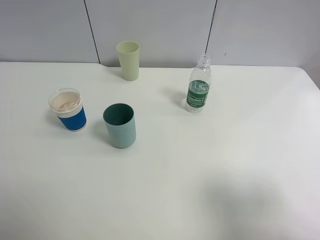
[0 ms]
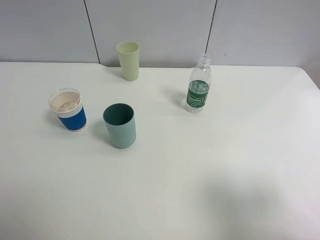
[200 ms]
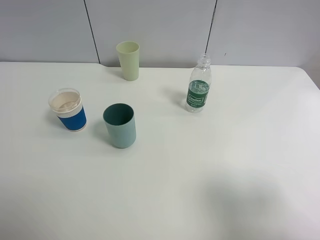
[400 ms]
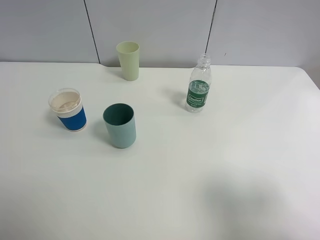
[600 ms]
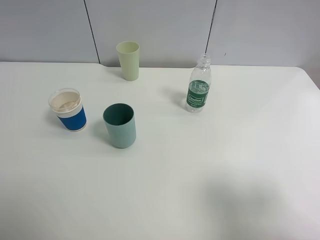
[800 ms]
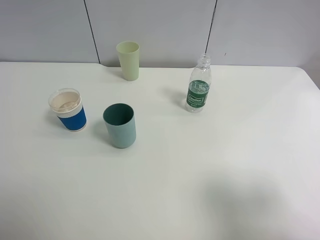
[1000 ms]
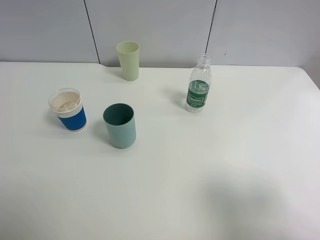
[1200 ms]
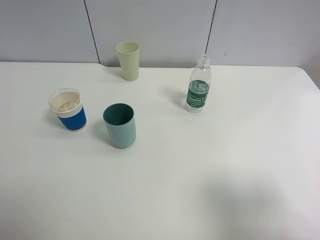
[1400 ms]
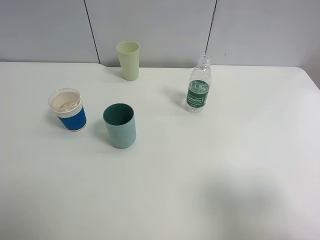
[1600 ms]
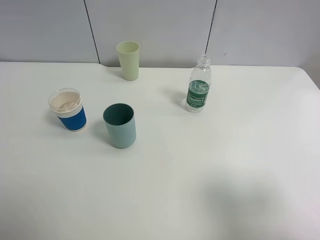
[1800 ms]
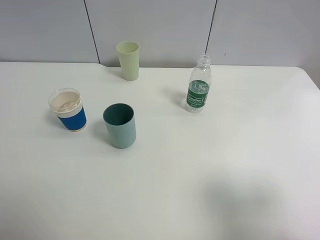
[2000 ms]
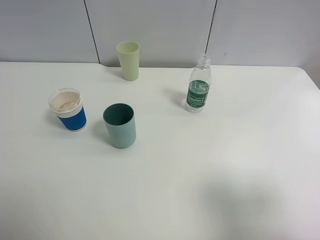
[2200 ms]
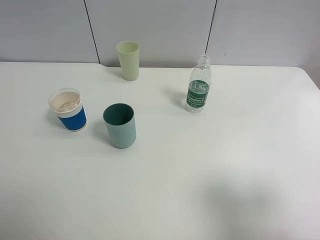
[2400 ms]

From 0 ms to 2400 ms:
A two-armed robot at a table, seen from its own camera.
Task of the whole recording: use a clamp to hold the bottle of the drink, pour the beverage into a random cup, then clamp the cup containing the drink and pour the drink into another random cup.
From 0 ms to 2400 ms: The two grippers keep their place.

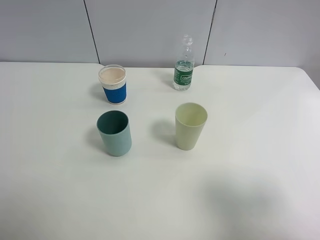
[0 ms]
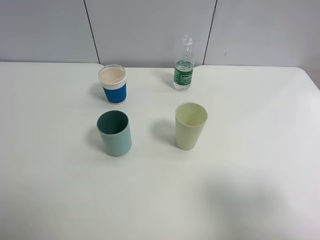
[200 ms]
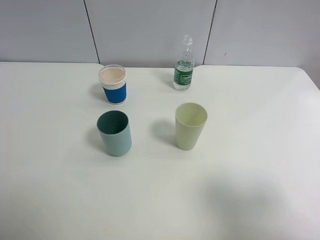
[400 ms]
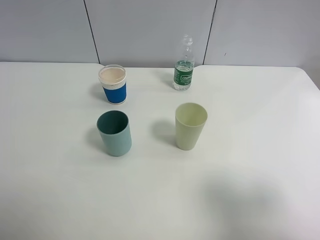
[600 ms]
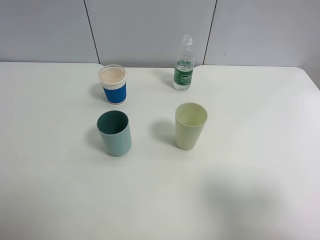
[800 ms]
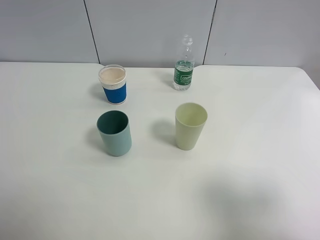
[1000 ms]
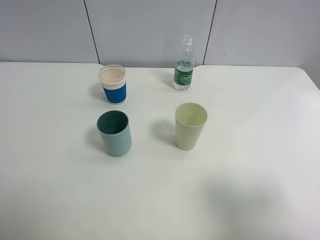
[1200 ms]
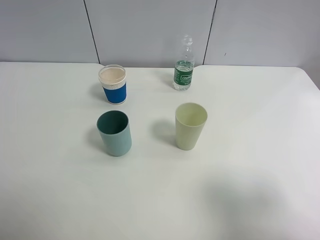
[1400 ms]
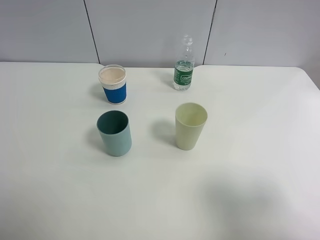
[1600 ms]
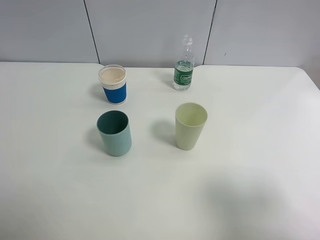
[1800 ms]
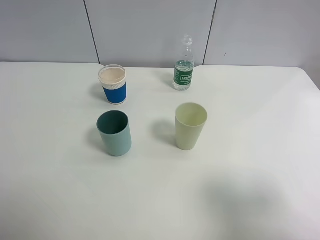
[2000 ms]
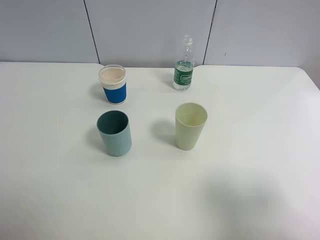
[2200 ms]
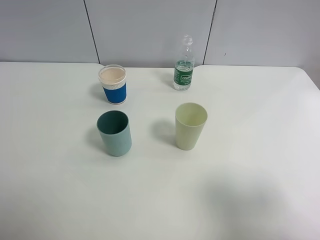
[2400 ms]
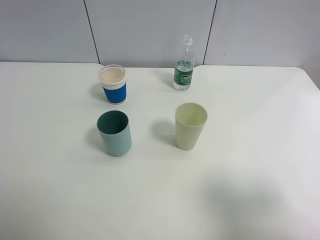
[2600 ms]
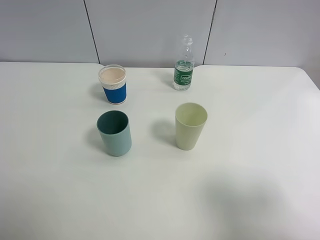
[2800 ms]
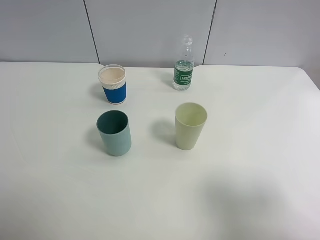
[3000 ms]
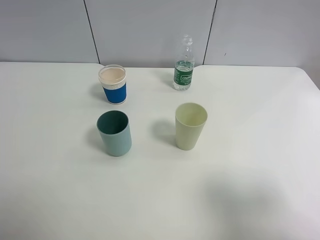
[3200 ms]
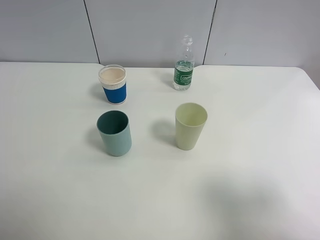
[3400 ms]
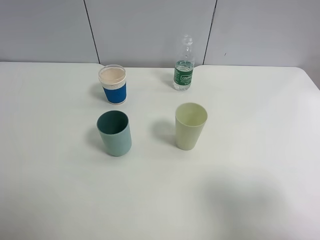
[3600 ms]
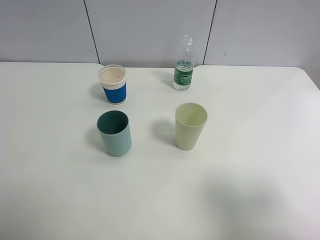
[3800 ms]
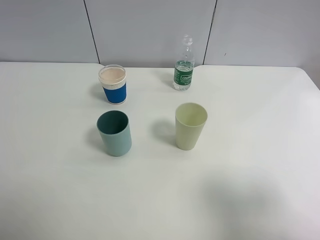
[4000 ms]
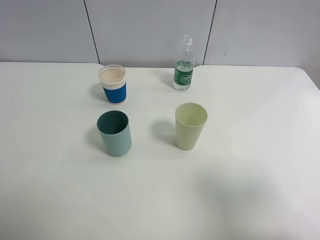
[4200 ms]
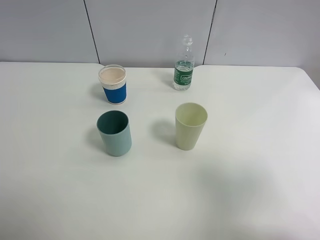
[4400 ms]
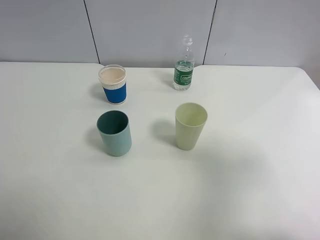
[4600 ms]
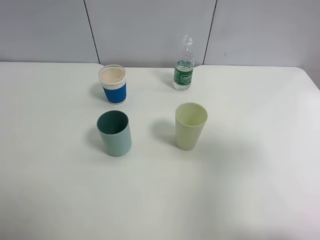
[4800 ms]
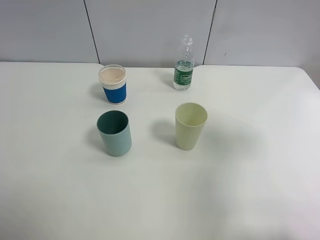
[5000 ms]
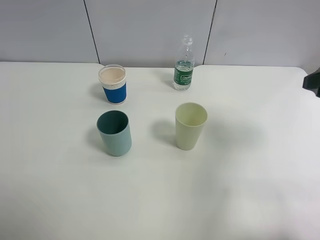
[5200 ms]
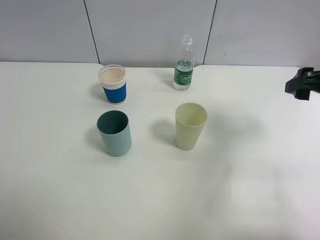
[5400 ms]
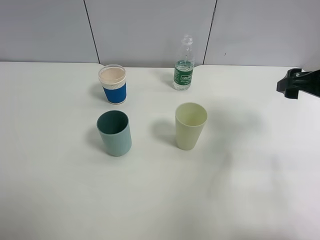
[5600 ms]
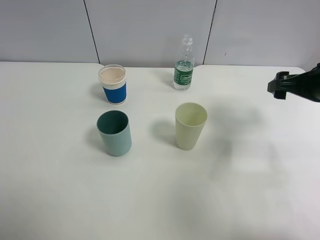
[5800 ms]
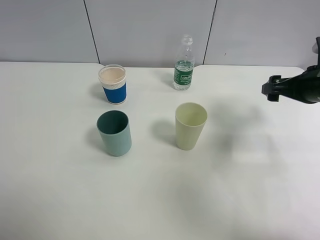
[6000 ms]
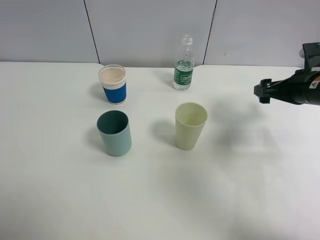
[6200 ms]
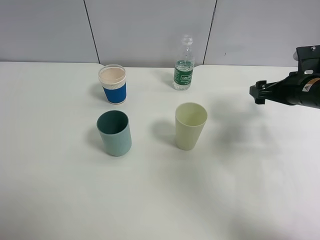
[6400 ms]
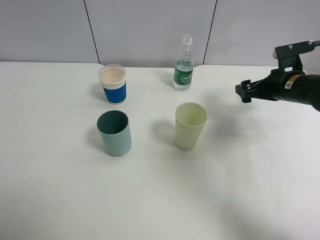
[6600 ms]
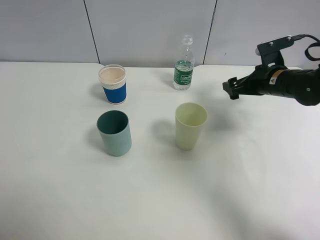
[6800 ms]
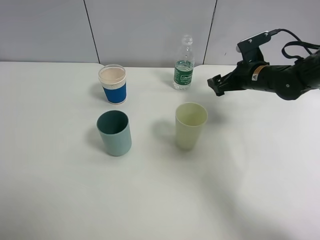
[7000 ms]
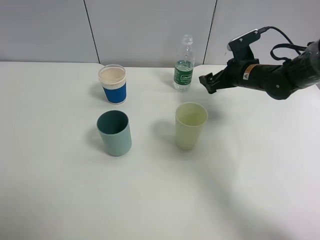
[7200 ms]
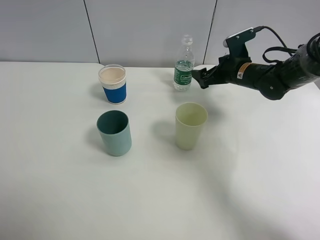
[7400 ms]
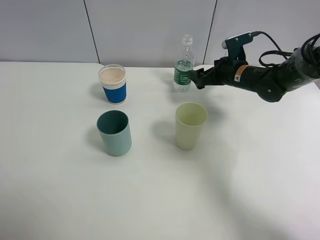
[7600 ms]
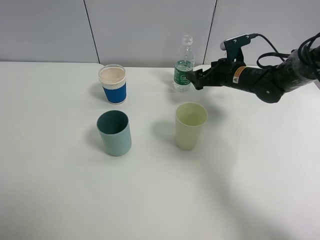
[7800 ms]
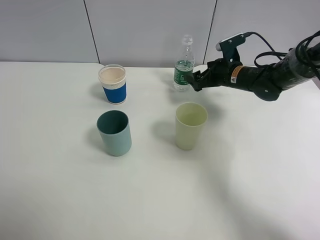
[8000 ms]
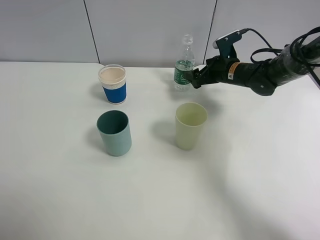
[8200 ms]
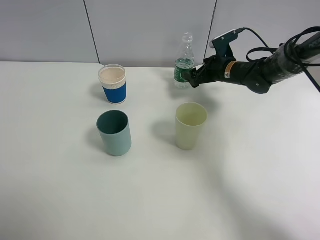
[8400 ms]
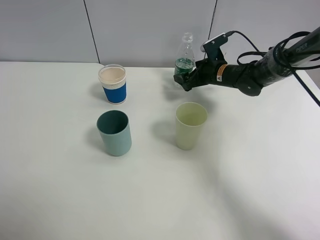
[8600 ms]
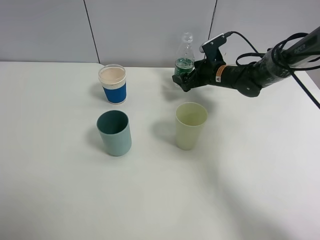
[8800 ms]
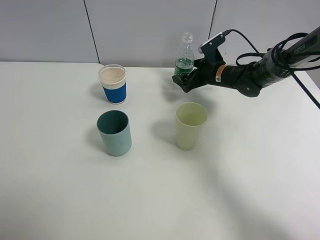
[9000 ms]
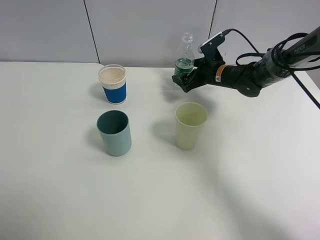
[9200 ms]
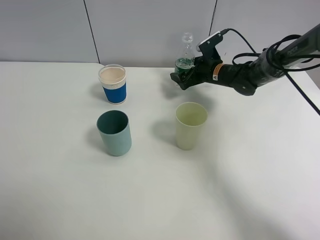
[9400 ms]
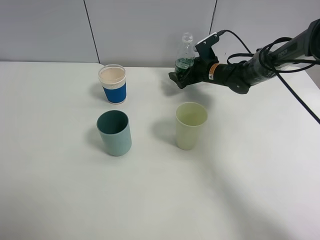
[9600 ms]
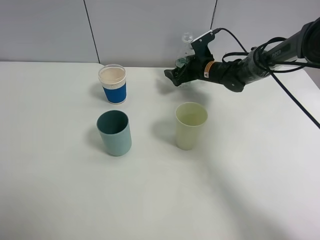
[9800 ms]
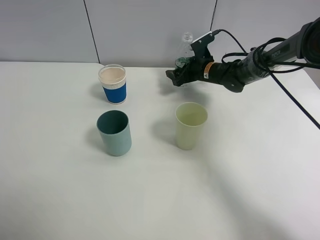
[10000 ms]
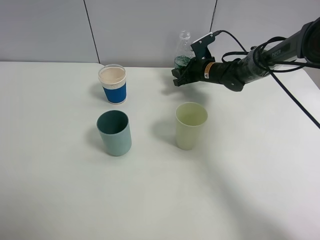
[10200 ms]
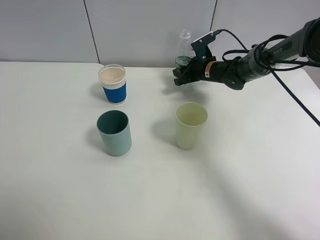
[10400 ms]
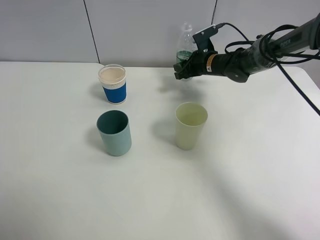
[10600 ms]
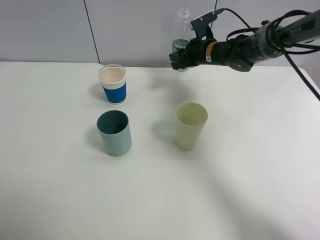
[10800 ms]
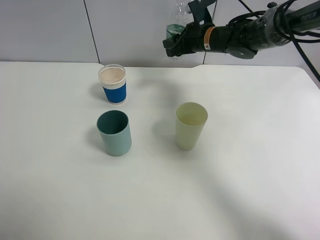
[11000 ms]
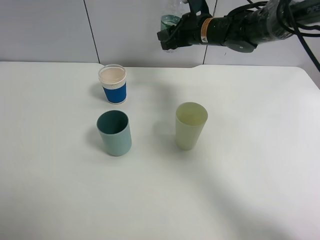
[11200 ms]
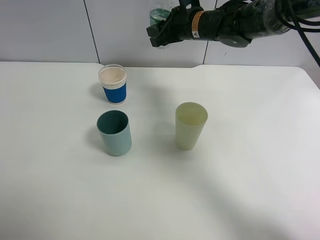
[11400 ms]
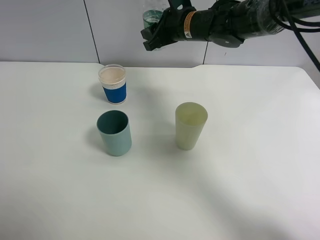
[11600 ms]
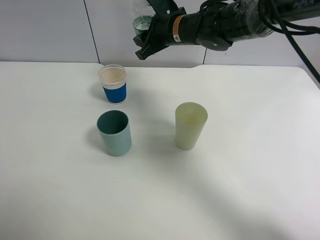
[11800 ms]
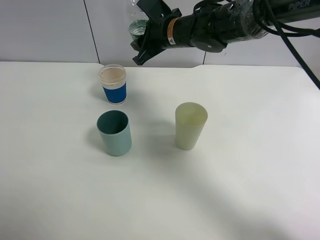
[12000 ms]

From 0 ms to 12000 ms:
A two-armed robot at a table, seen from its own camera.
Task of the whole recording: use a clamp to hold the bottle of the drink, pour the beverage into a random cup, then clamp the cup containing the drink and pour the drink into another random cup.
Step, from 0 ms to 10800 ms: Pick up the water bottle with right gripper.
From 0 ms to 3000 ms: Neither gripper changes place.
From 3000 ms to 4400 ms: The grippers move only a little.
From 4400 ms to 6000 ms: The right gripper is displaced forward and downward by about 25 cm.
From 6000 ms to 7600 ms: The right gripper travels forward, to the left and downward by some 20 cm.
From 7600 ms to 9000 ms: The right gripper moves about 5 cm.
From 9000 ms to 10400 ms: The right gripper closes.
From 10400 ms to 12000 ms: The right gripper travels upward, to the left and backward by approximately 20 cm.

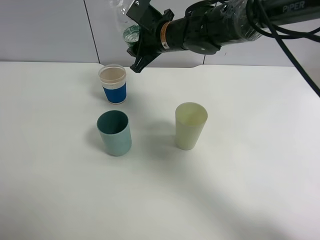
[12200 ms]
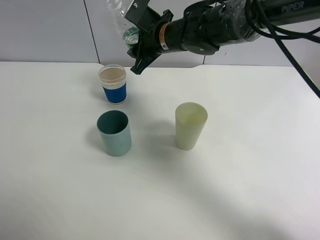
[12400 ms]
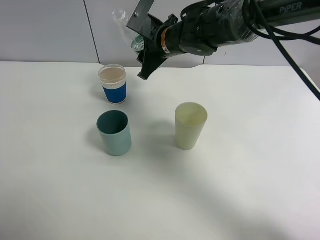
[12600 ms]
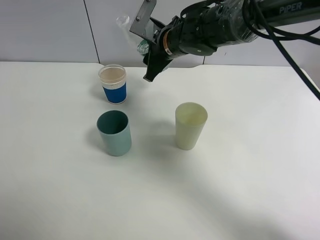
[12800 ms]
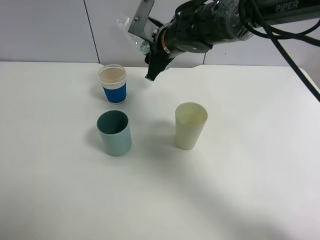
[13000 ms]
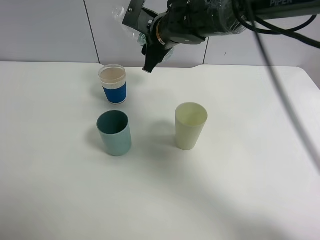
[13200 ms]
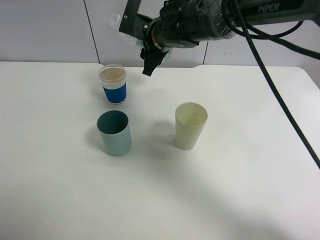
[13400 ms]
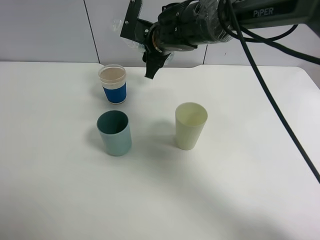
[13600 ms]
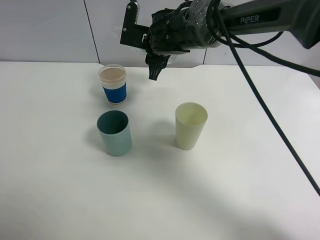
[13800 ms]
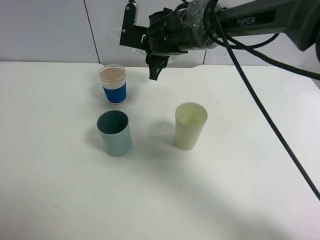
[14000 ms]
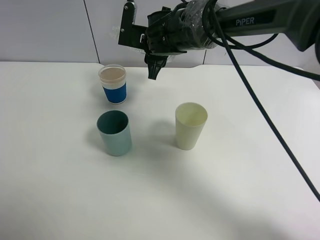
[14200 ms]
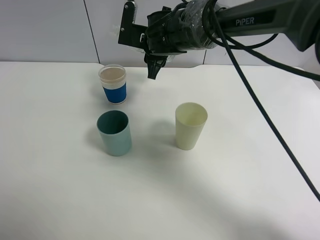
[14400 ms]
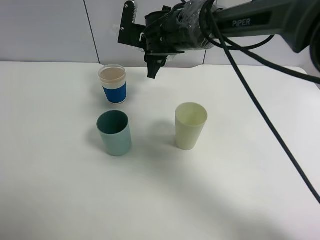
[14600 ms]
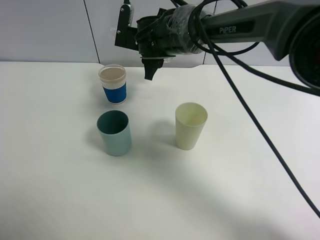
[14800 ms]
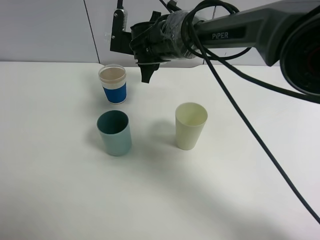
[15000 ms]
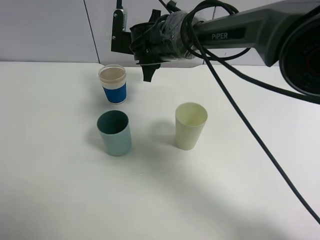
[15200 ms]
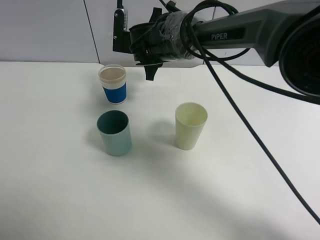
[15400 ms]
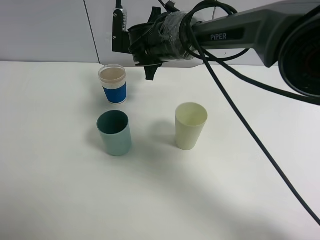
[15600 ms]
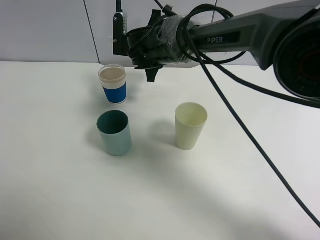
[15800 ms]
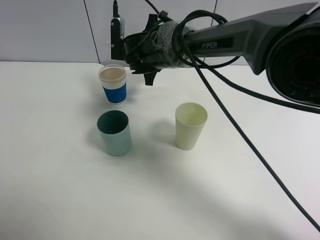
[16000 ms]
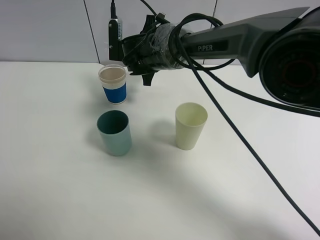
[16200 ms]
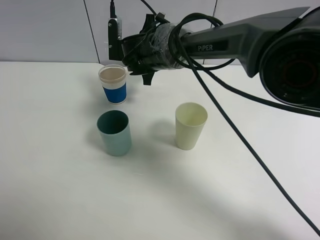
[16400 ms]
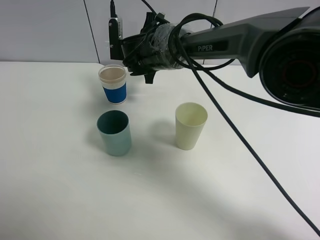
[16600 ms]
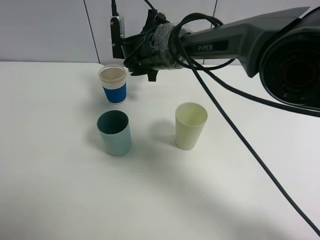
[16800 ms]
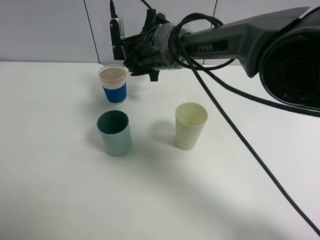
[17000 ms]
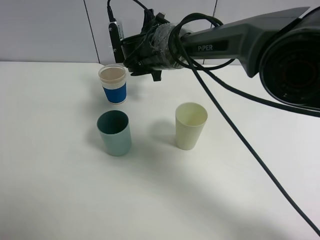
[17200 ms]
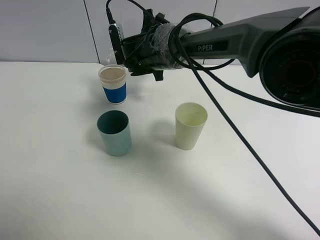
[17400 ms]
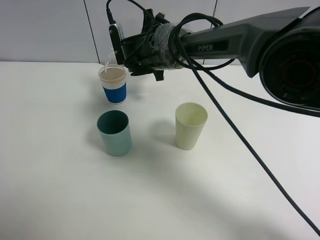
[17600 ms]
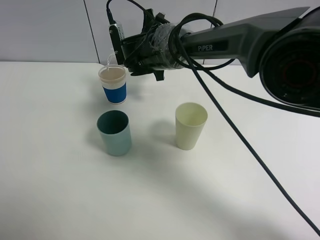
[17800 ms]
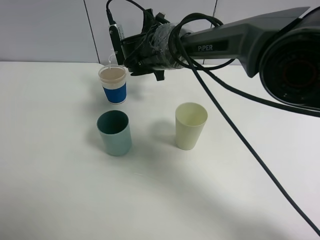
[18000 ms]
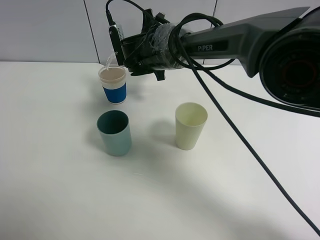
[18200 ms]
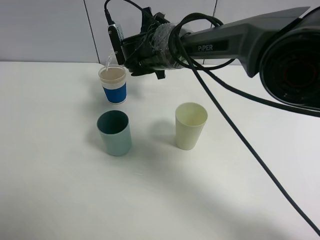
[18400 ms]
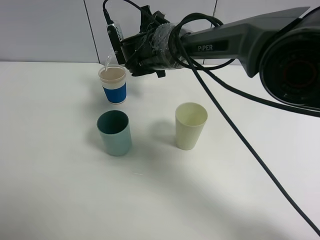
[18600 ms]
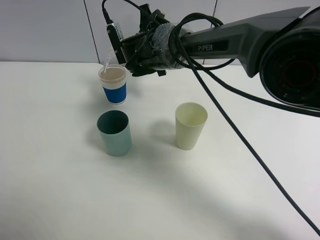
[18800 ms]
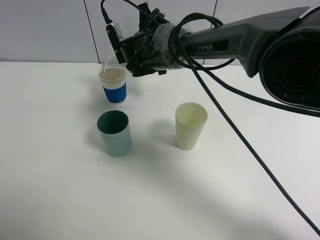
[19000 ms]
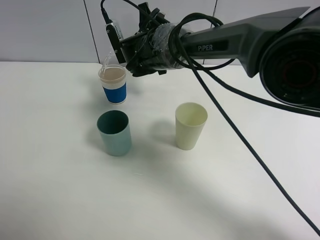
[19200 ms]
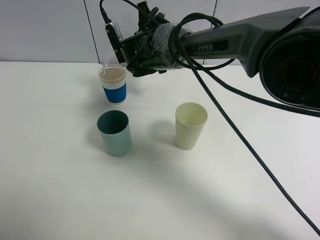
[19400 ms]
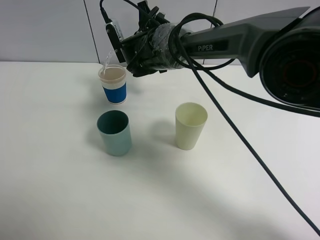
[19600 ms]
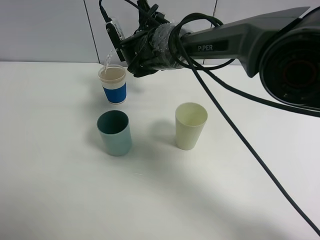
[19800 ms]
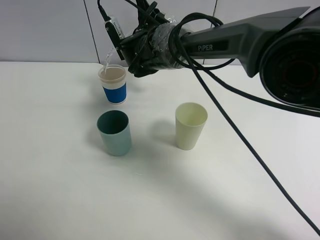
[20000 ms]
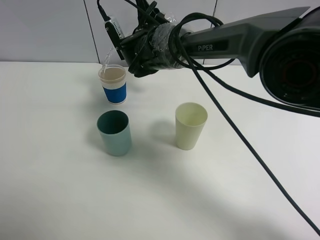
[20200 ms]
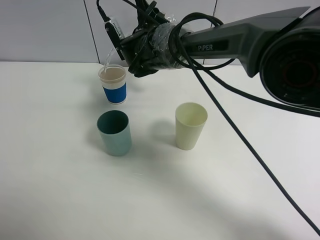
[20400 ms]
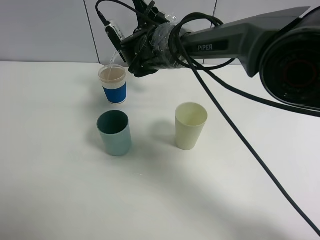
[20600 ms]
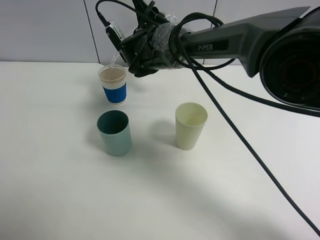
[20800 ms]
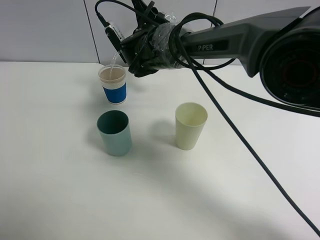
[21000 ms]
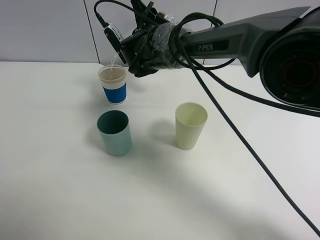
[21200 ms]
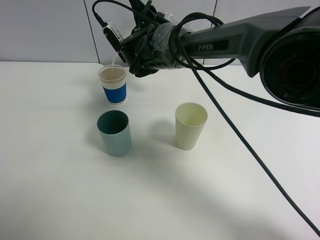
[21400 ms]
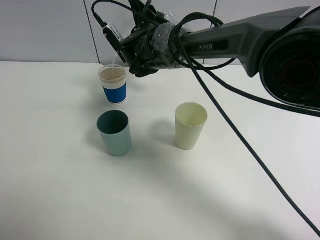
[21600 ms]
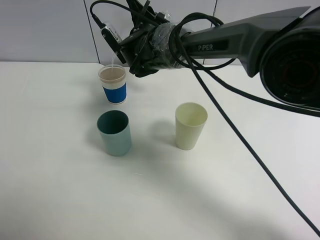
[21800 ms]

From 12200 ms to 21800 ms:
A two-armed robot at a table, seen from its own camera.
Task of the whole recording: use a clamp to hold the bottle of the drink, pour the beverage into a random cup, then clamp the cup containing the drink and pour the drink into another random cup.
From 13800 ms to 15400 ms: The grippers make only small movements.
From 15400 ms to 17000 ms: The grippers move only a little.
From 17000 ms to 18600 ms: There are only small adjustments of the grippers.
From 18600 ms to 21800 ms: The grippers stay close to where they were, moving slightly.
